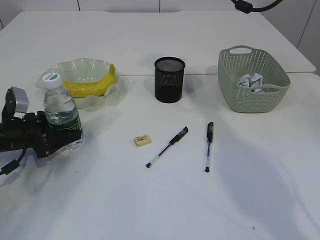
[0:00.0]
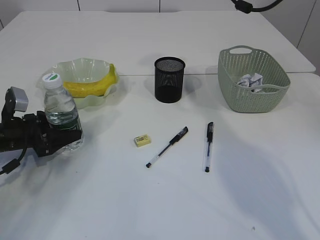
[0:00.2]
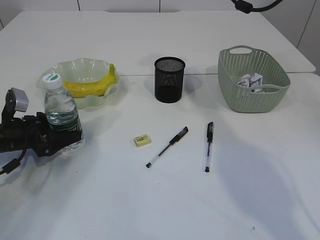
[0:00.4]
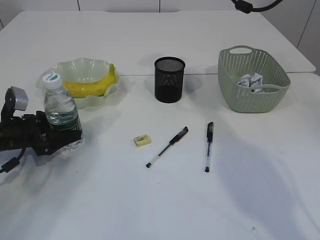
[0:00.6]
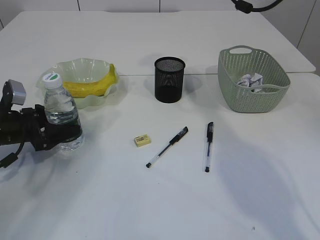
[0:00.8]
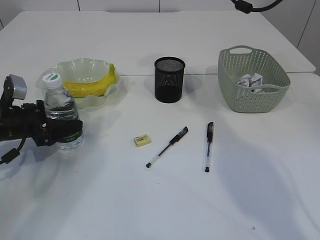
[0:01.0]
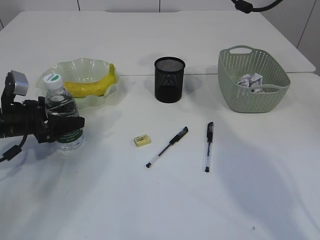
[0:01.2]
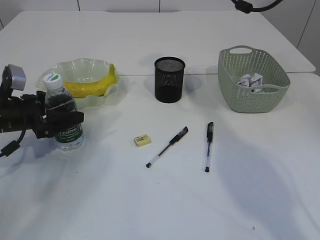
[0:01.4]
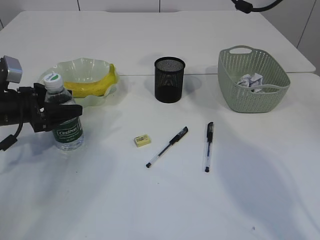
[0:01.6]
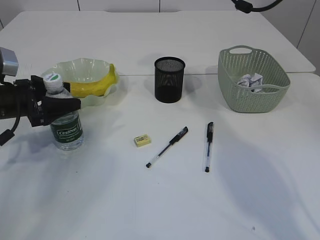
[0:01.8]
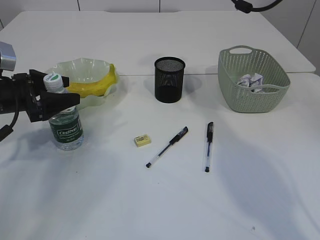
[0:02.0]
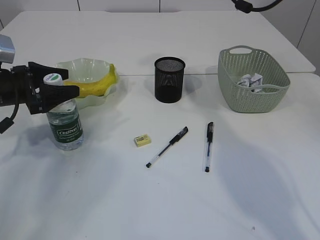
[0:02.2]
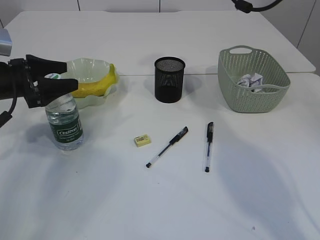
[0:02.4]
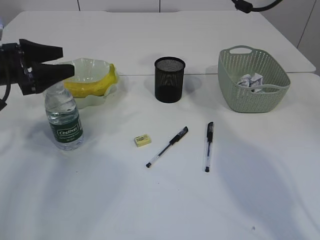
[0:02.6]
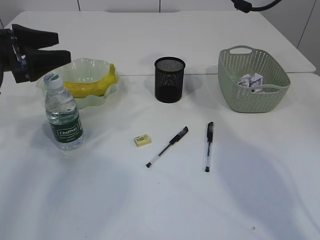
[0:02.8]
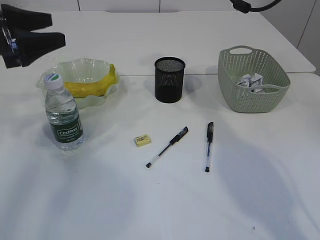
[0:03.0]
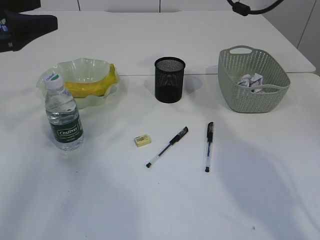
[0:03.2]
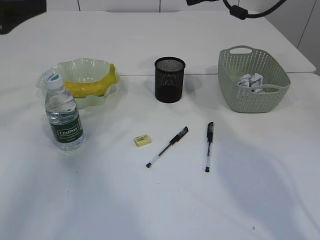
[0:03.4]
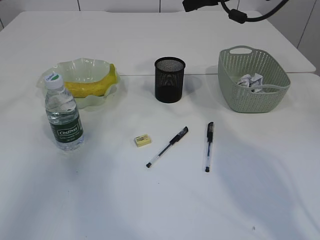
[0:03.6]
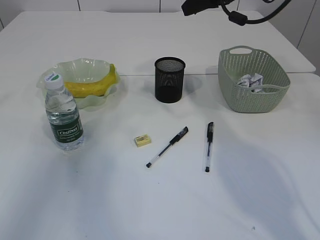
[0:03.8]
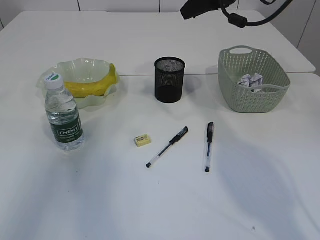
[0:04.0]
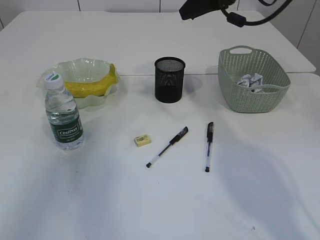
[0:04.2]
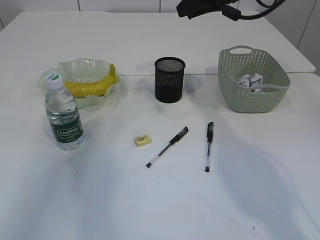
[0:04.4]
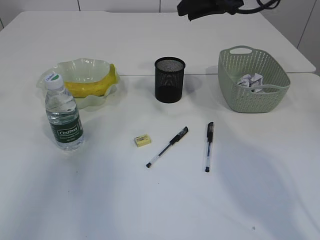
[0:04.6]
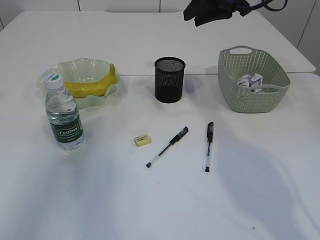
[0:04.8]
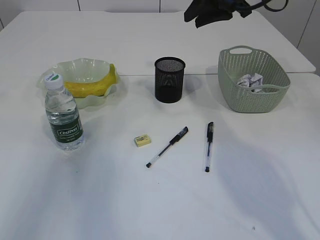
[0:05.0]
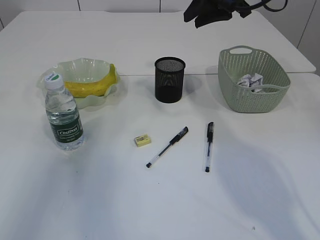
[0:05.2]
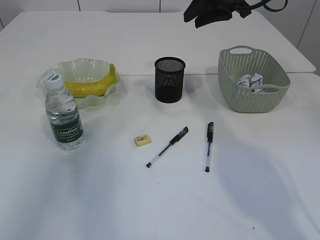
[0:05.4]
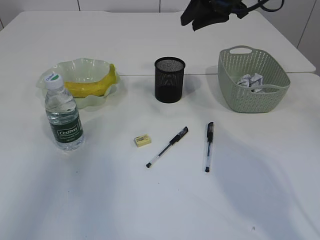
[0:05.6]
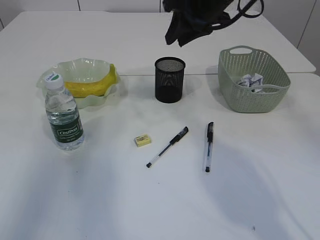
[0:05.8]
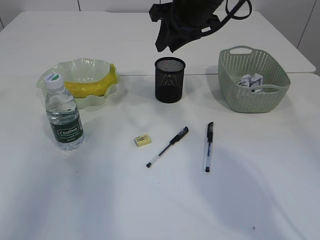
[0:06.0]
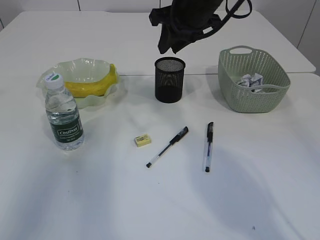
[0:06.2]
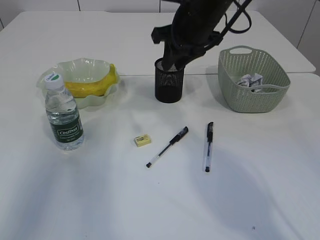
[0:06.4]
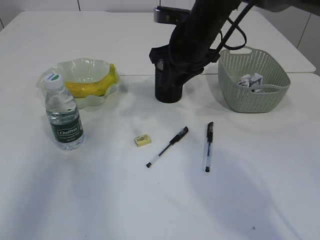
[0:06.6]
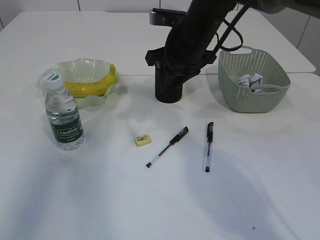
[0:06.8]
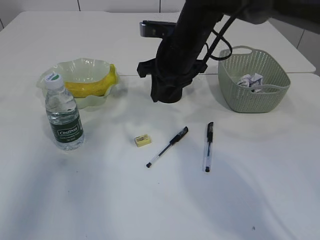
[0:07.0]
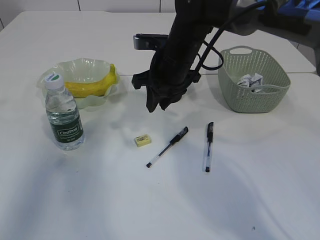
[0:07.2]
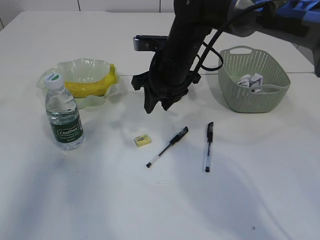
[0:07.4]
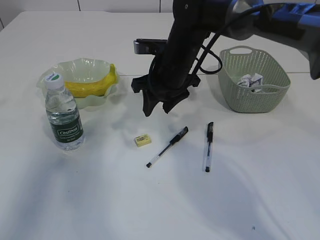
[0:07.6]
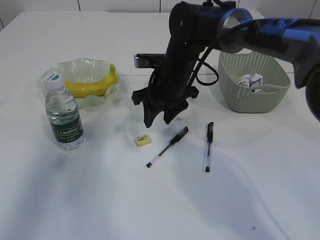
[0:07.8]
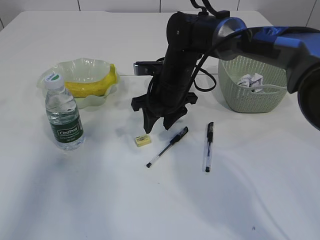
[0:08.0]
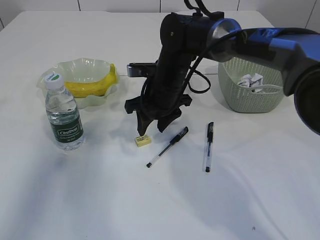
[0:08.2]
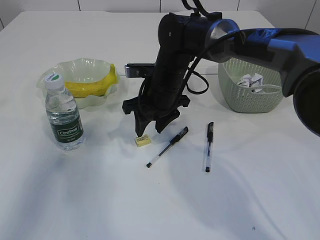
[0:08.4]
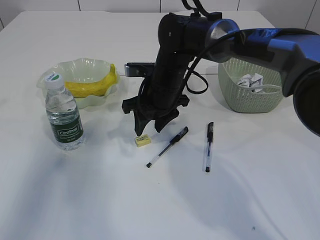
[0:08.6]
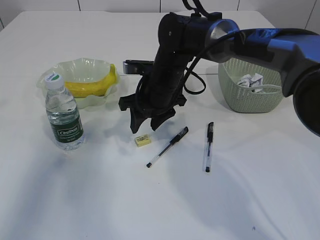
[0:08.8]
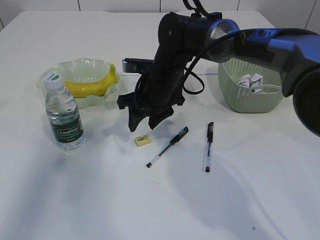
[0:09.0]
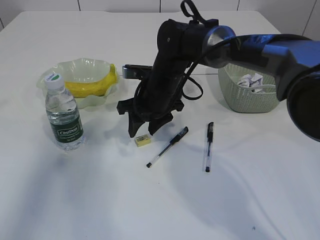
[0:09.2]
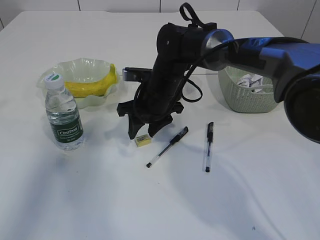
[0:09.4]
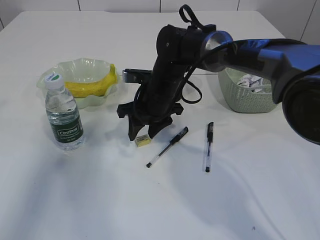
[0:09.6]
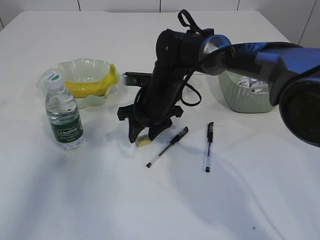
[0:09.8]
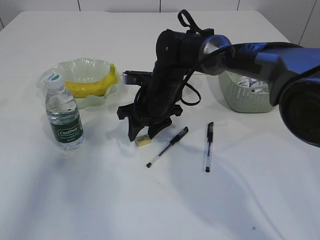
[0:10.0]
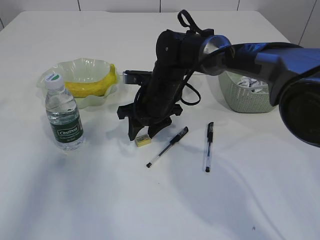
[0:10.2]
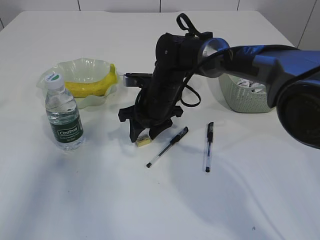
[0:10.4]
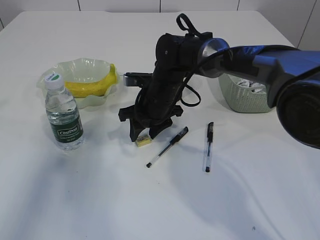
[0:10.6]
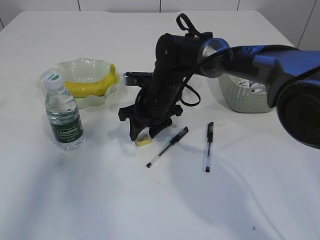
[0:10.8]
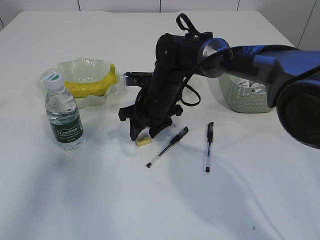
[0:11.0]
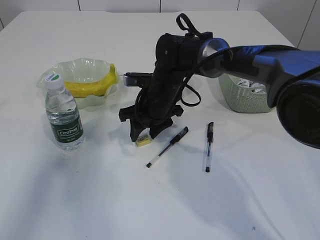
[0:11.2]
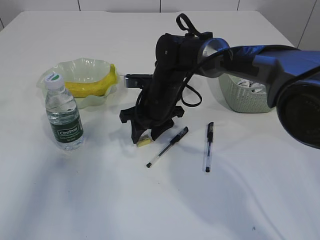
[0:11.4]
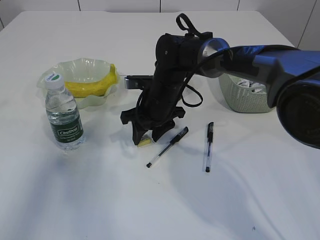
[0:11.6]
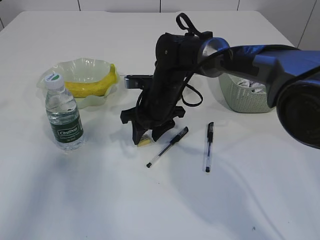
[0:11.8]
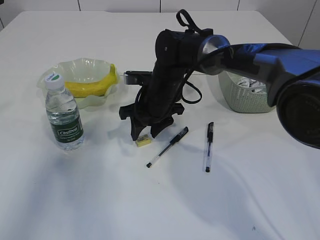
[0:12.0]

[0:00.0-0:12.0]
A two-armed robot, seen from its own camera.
Step, 0:00.0 to 0:02.8: Place the bottle.
0:00.0 to 0:01.6: The left gripper is displaced upward by roughly 5 cm.
0:01.6 to 0:03.0: The left gripper moves upward, roughly 15 cm.
0:03.0 to 0:04.4: The left gripper heads upward and backward, covering about 15 cm.
0:04.4 to 0:06.0: The right gripper shifts some 5 cm to the left.
0:06.0 to 0:07.6: The right gripper is displaced downward by some 10 cm.
0:07.6 to 0:09.0: The grippers make only small movements.
0:09.0 to 0:10.4: The grippers stay close to where they were, moving slightly.
0:10.4 to 0:12.0: Both grippers stay put.

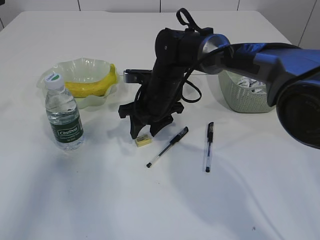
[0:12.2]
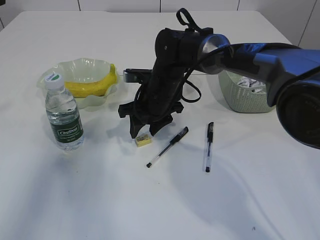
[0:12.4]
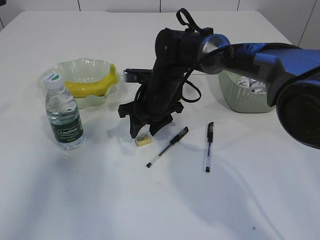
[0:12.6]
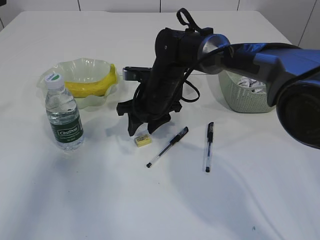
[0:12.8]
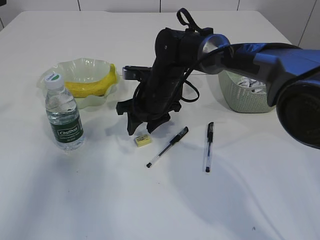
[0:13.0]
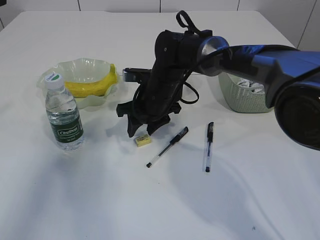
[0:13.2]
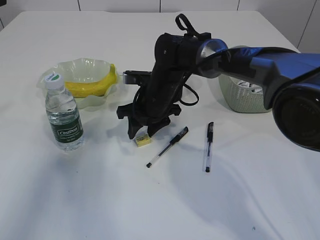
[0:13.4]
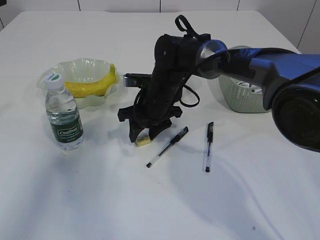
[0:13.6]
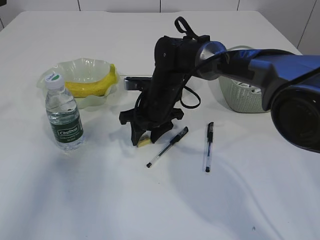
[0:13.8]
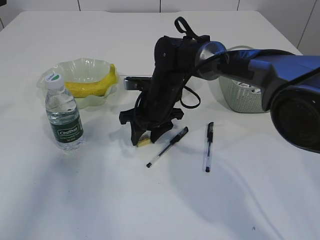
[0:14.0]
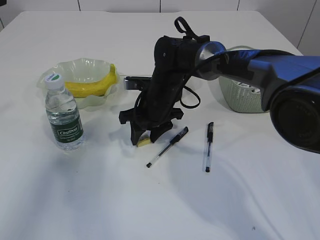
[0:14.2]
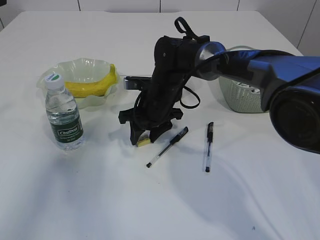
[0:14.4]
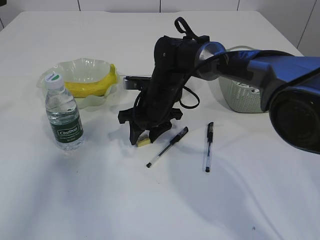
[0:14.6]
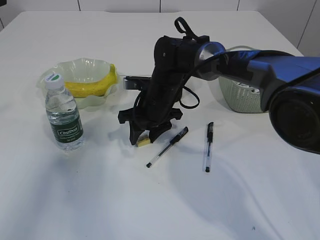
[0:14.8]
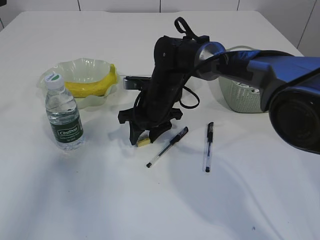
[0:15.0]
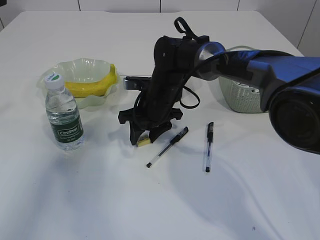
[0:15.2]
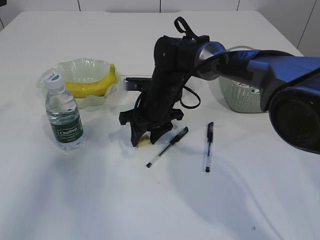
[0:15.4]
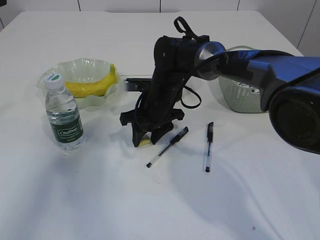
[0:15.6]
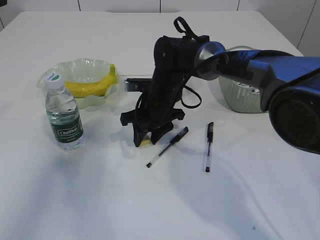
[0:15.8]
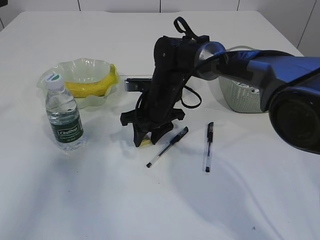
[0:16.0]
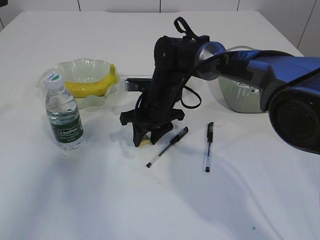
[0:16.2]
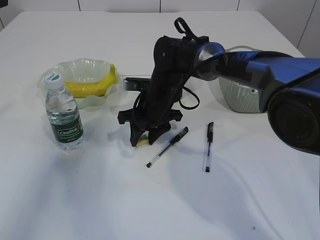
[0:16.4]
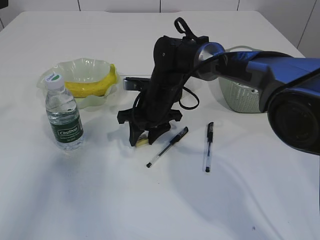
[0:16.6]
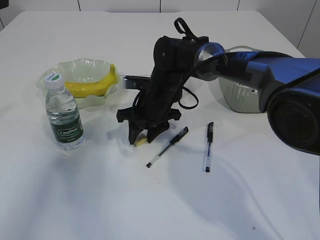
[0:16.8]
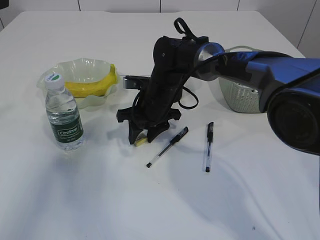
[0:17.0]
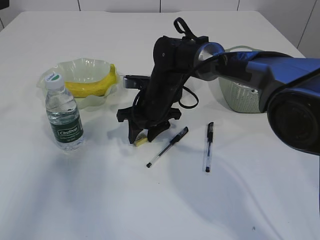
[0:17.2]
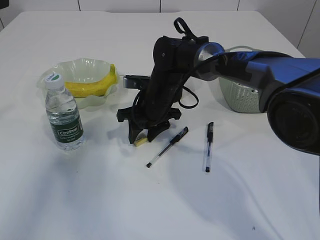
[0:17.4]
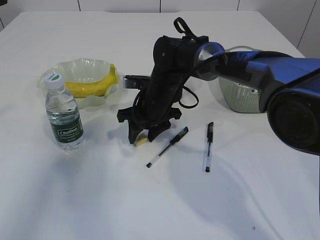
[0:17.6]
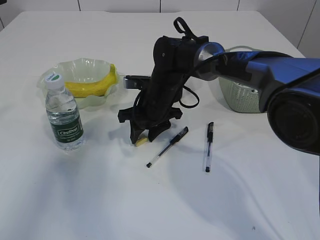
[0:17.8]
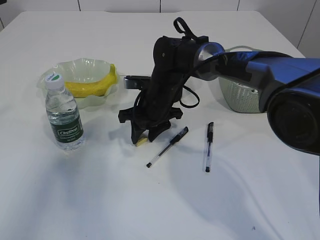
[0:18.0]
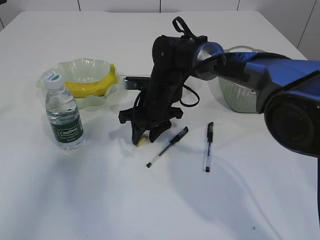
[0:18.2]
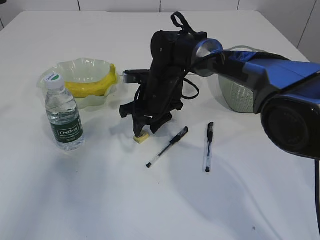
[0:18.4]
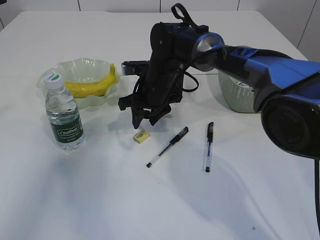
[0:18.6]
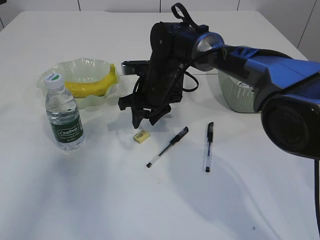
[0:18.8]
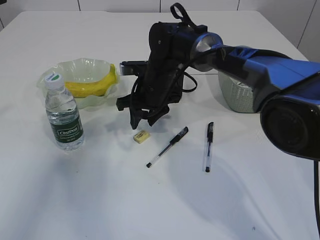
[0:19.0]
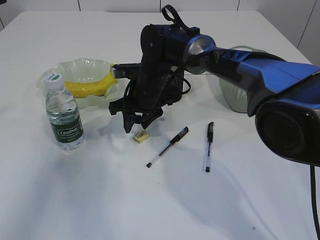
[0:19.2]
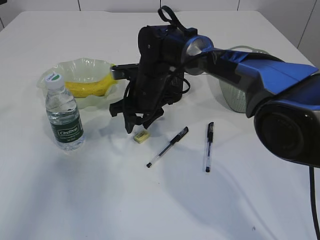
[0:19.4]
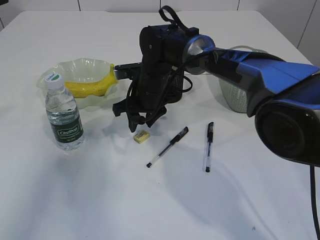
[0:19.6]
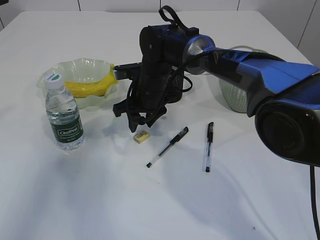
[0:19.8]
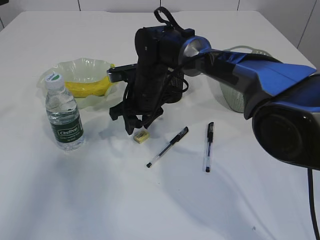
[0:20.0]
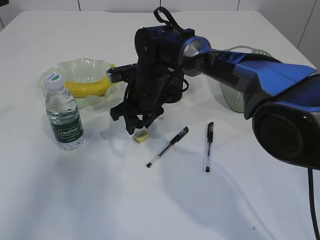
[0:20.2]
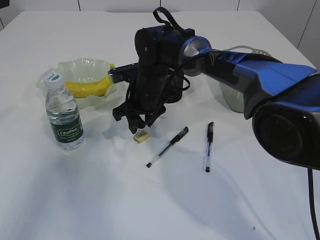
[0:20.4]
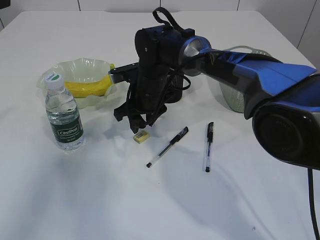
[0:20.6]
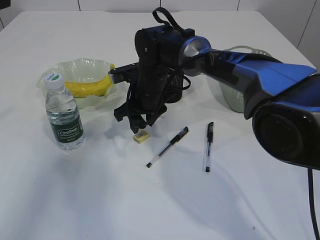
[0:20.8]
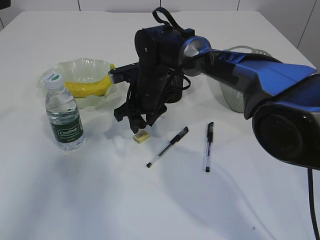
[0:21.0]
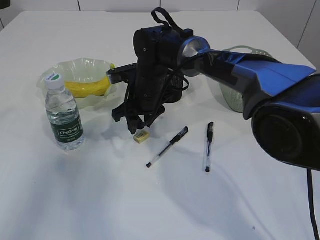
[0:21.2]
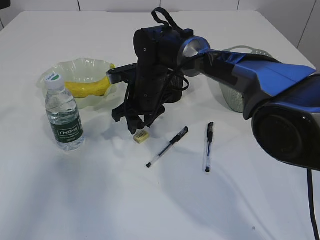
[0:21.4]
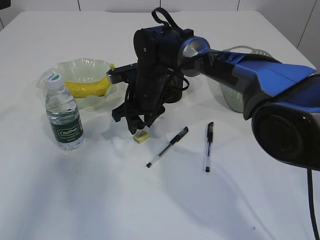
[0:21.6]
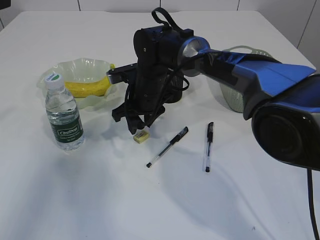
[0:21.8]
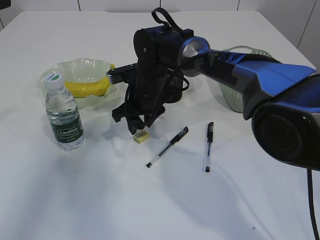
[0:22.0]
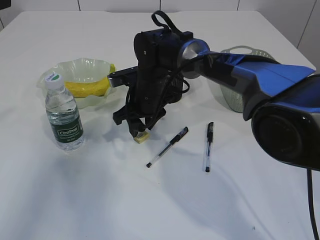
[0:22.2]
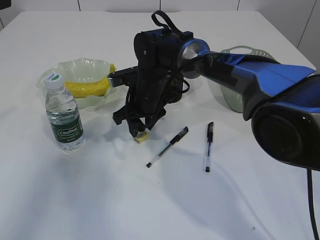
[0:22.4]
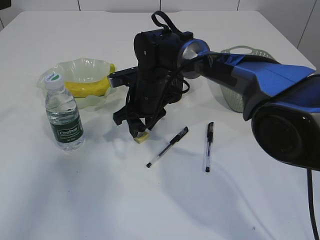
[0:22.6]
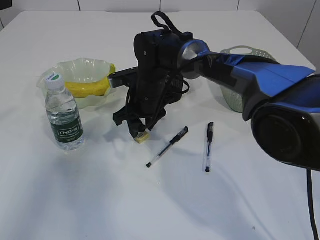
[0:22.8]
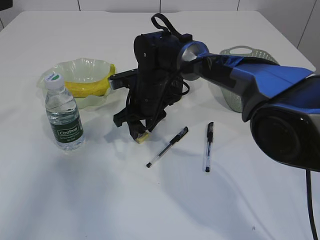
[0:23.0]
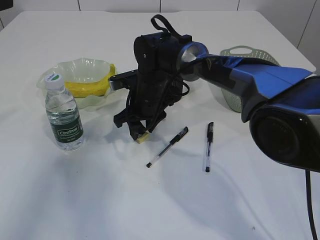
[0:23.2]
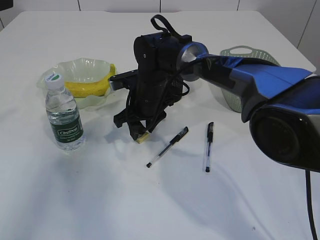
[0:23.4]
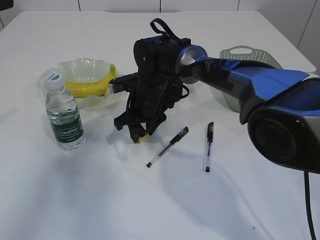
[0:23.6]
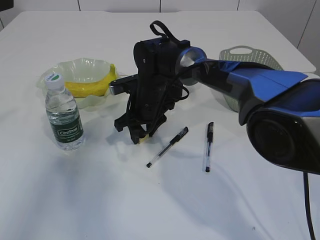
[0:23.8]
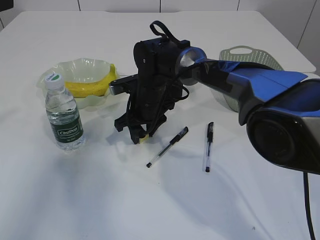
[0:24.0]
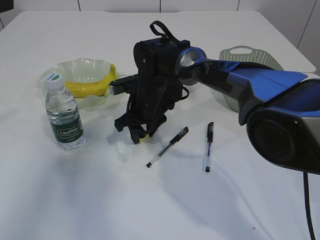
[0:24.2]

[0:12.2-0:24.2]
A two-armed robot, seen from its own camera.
0:12.2 to 0:13.8: The grippers make only small movements.
0:13.8 to 0:18.2: The two grippers keep their place.
0:18.2 to 0:21.2: There are only small adjustments of the grippers.
0:21.2 to 0:22.6: The two grippers keep their place.
0:22.6 to 0:24.2: The grippers make only small movements.
